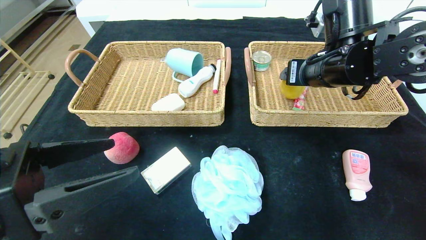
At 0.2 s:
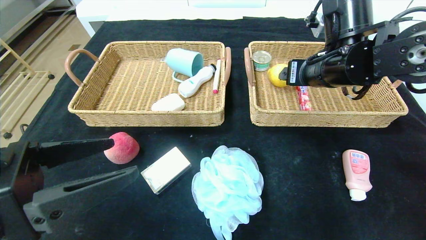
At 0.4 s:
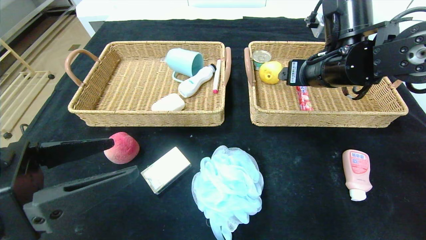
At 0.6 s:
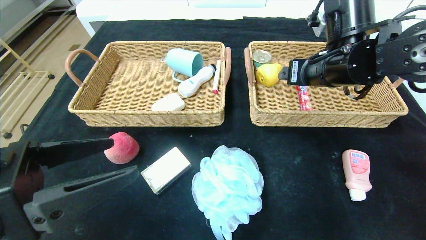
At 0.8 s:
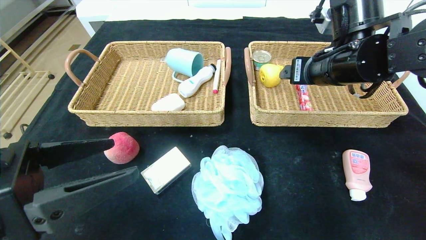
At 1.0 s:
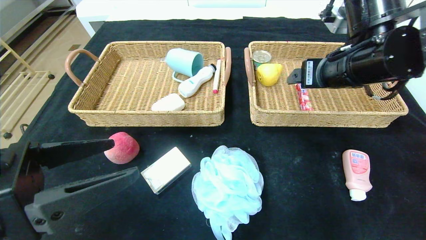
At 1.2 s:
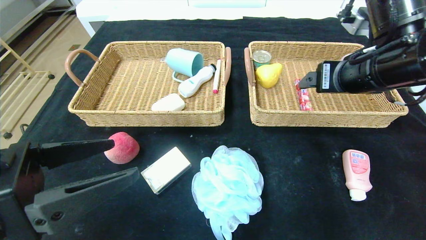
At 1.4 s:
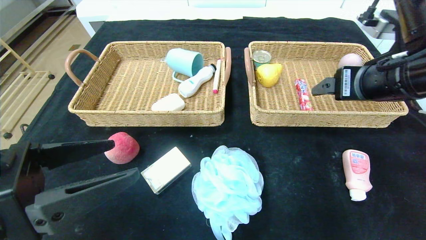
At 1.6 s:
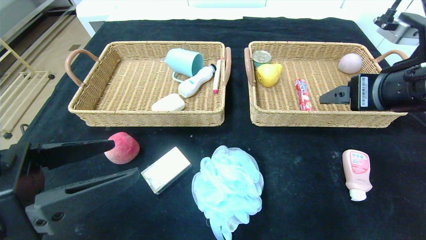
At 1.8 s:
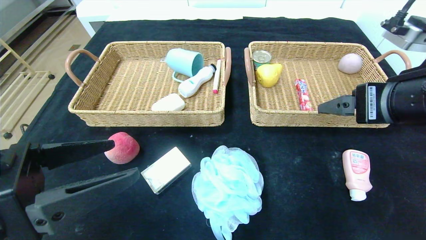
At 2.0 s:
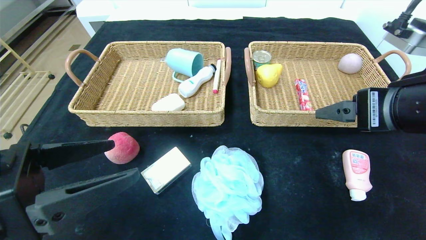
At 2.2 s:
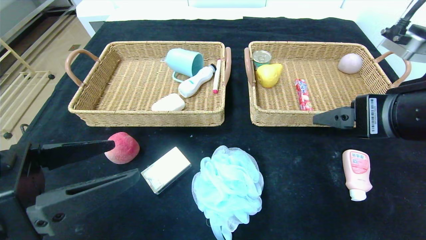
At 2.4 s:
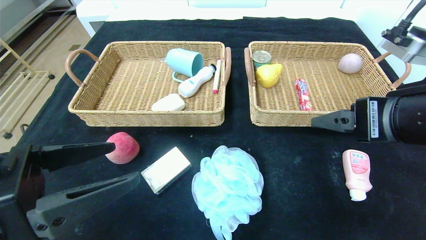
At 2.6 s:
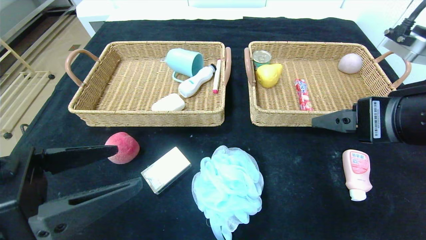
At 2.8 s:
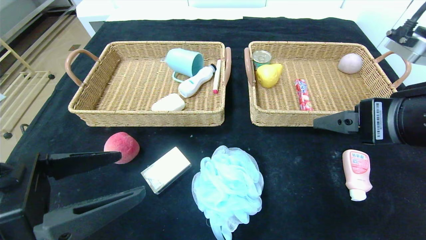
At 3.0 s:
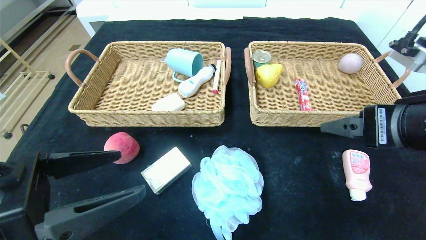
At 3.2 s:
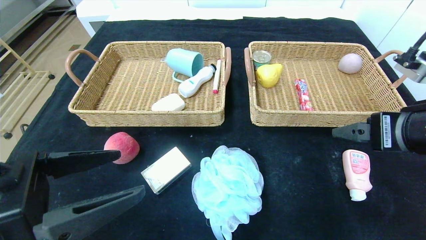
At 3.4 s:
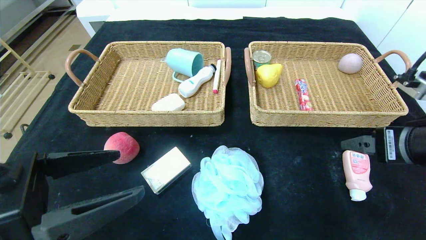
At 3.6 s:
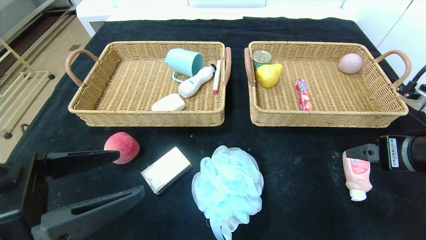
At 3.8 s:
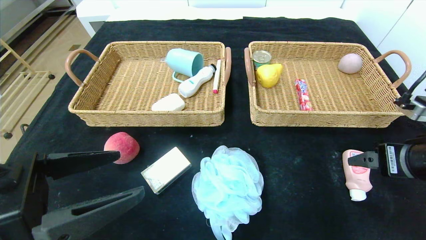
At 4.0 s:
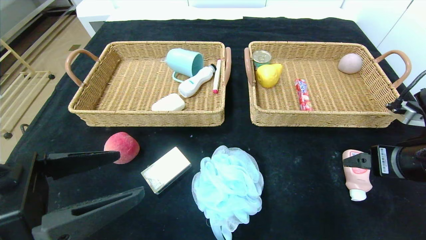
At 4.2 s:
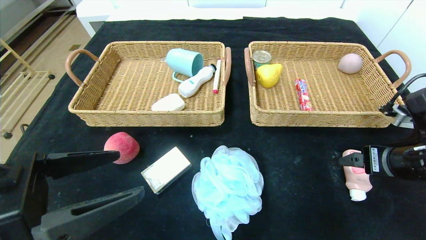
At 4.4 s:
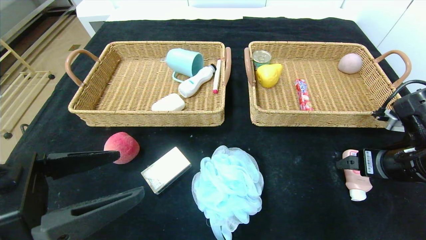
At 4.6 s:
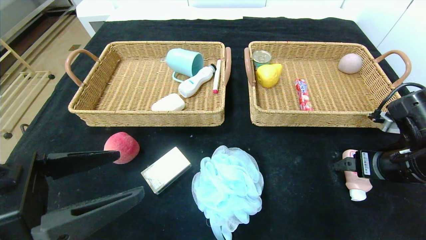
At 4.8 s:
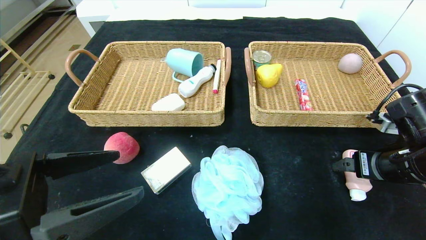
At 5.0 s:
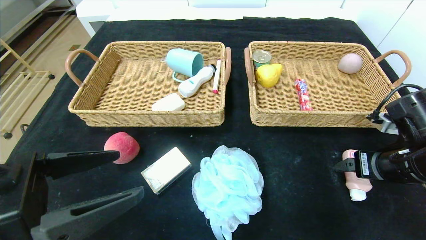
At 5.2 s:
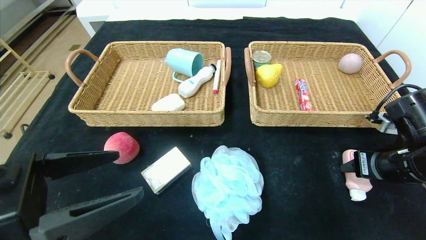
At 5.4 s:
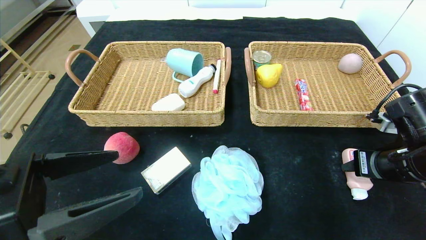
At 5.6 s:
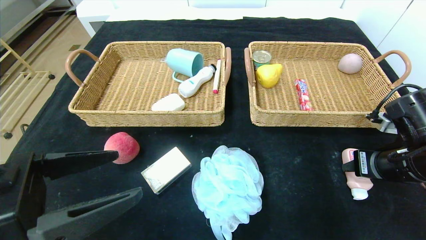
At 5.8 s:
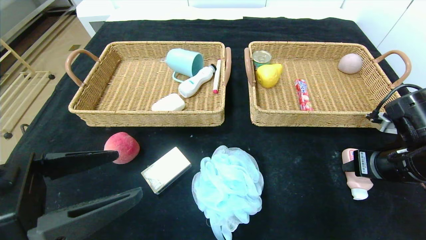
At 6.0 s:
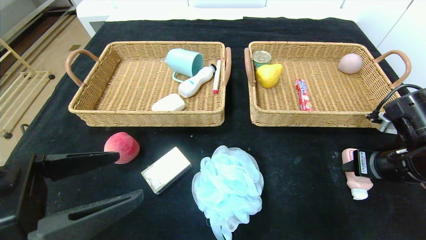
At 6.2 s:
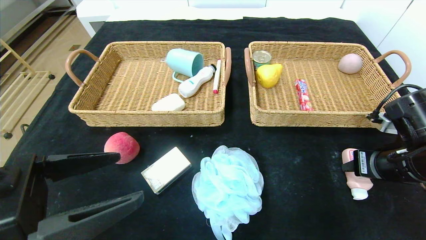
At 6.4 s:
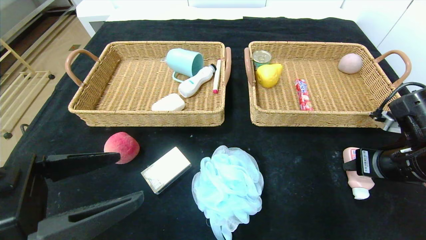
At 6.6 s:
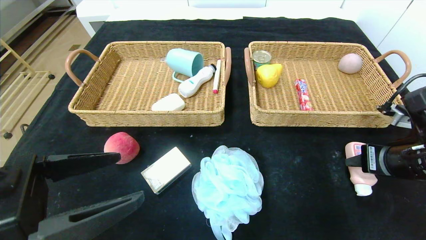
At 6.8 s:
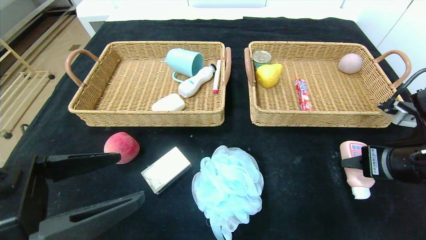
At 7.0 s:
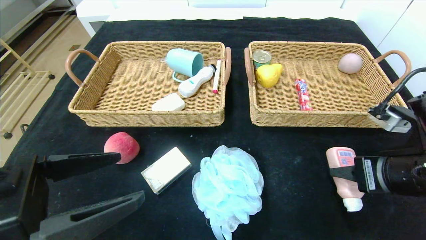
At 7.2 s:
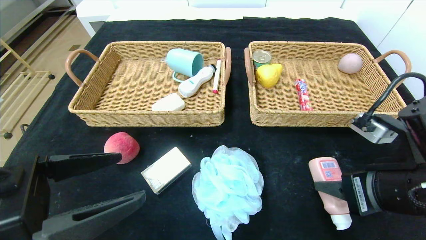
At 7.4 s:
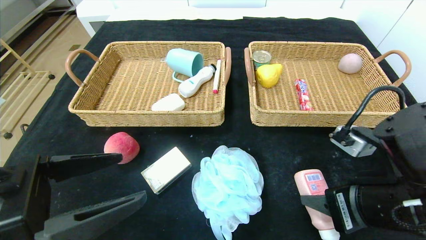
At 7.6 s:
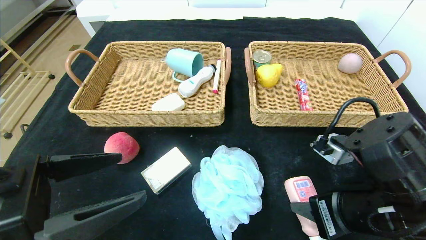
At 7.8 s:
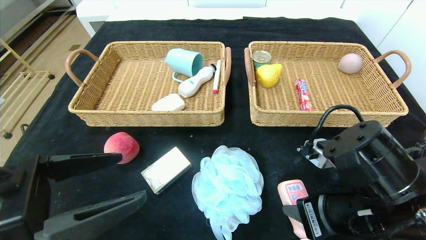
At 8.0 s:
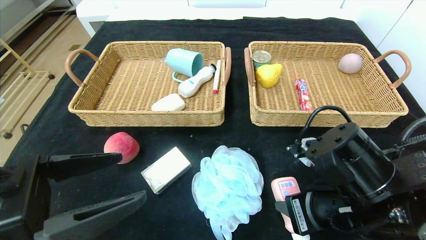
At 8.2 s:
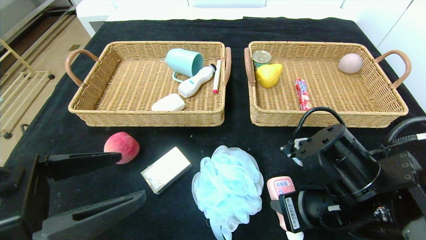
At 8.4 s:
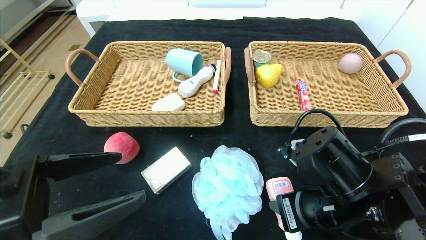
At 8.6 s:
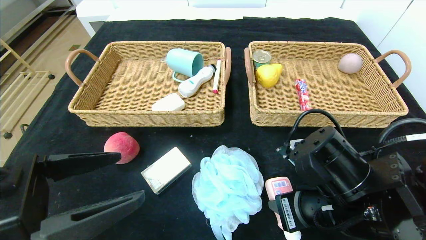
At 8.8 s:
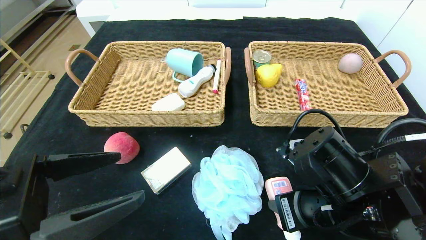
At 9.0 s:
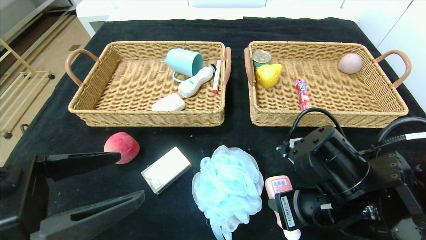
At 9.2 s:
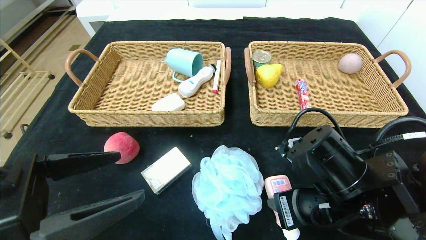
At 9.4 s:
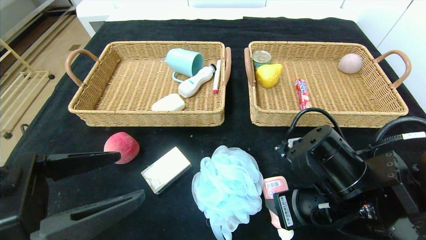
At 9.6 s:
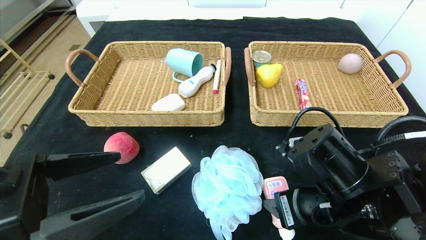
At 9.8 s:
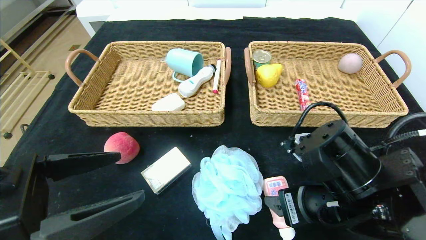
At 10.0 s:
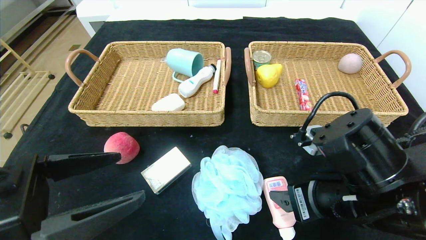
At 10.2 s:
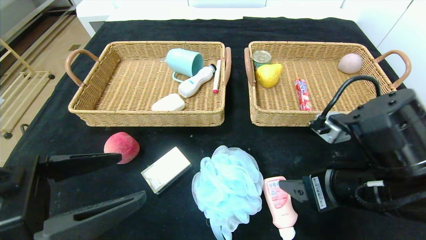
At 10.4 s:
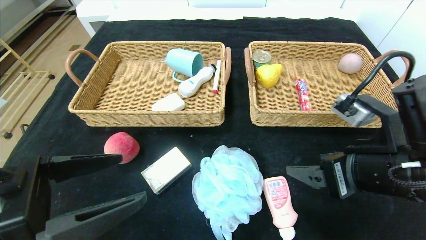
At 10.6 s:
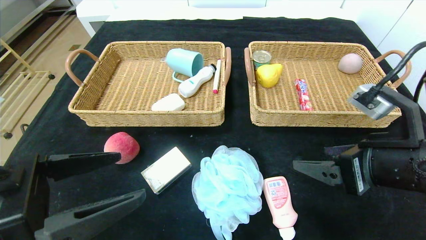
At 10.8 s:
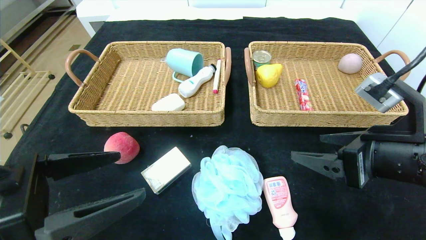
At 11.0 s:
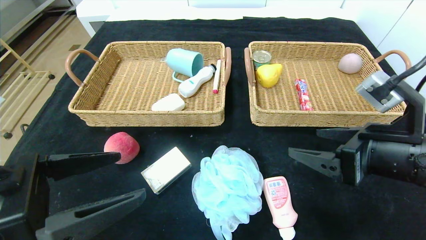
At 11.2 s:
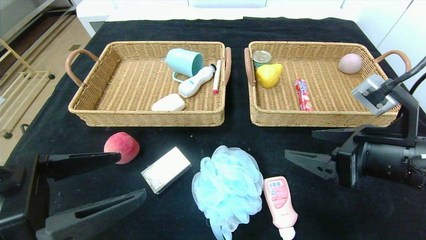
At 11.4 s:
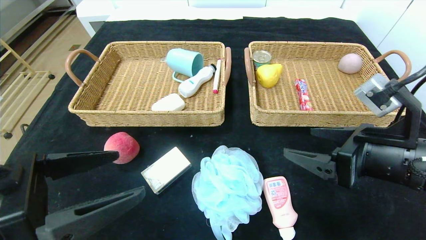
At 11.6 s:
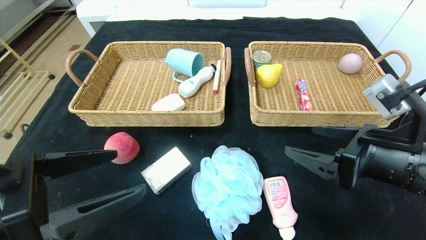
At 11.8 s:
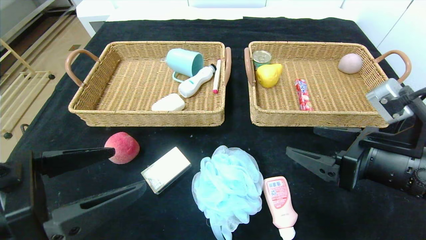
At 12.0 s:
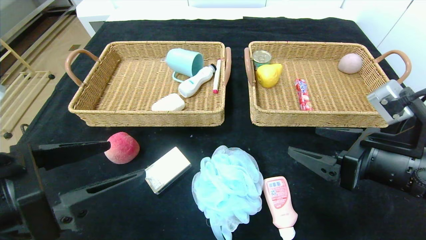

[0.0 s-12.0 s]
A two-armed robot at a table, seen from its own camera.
Step, 0.0 to 3.0 s: Pick up the pear and put it in the right basket.
Step, 3.2 to 10.4 s: Place the washing liquid in the center of the table.
0.0 to 1.6 s: The right gripper travels backward and to the right by about 10 cm.
1.6 to 3.0 s: The right gripper shifts by about 5 cm.
3.0 to 4.4 s: The right gripper shifts roughly 15 cm downward, to the right and forward.
4.4 to 6.0 s: The right gripper closes its fingers.
6.0 to 7.6 s: The right gripper heads to the left and backward, covering roughly 15 cm.
7.6 to 9.0 s: The right gripper moves approximately 5 cm.
9.0 to 10.4 s: The right gripper goes approximately 10 cm to the right and upward, and opens.

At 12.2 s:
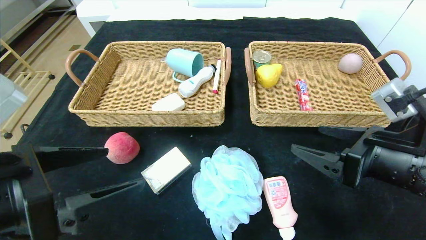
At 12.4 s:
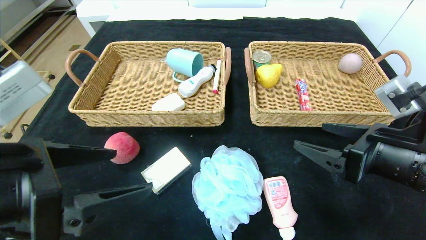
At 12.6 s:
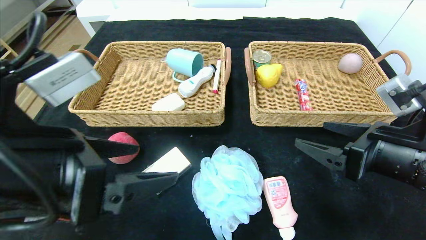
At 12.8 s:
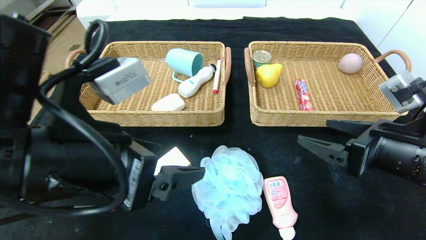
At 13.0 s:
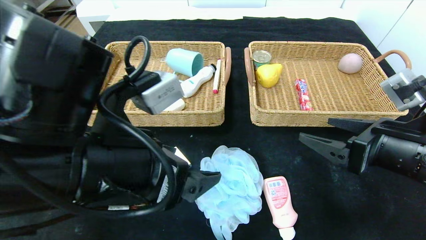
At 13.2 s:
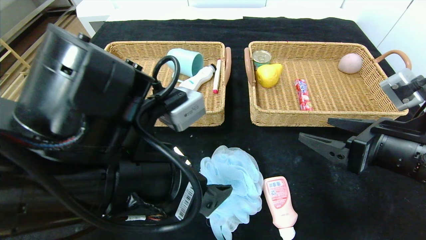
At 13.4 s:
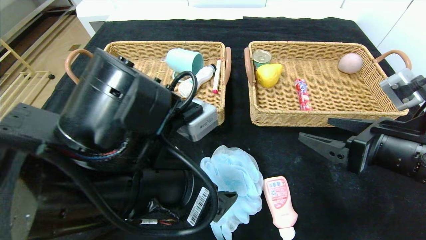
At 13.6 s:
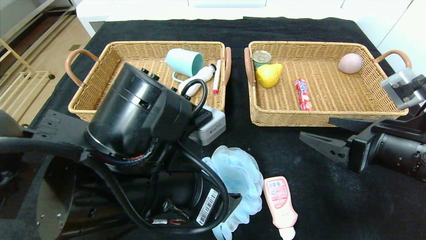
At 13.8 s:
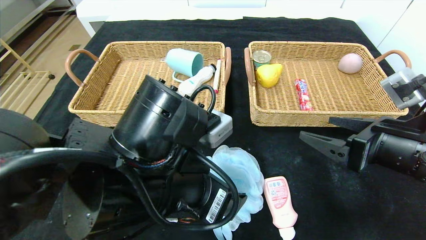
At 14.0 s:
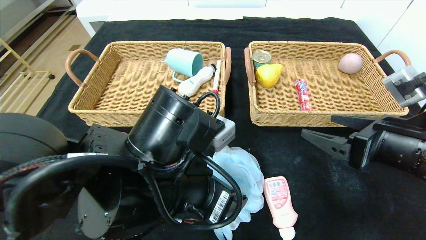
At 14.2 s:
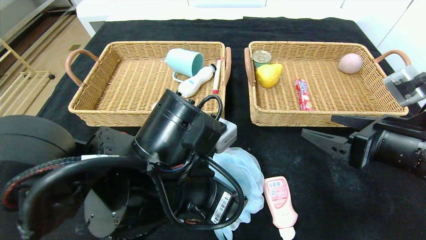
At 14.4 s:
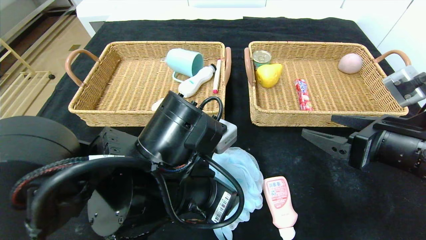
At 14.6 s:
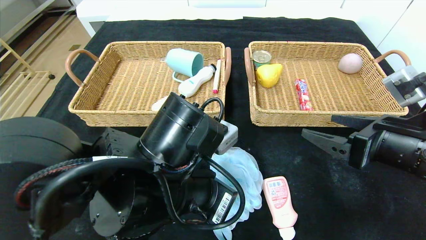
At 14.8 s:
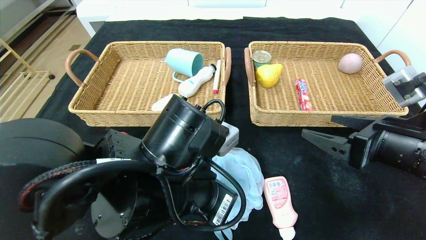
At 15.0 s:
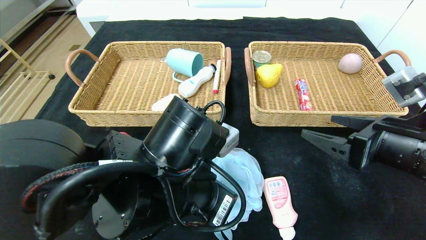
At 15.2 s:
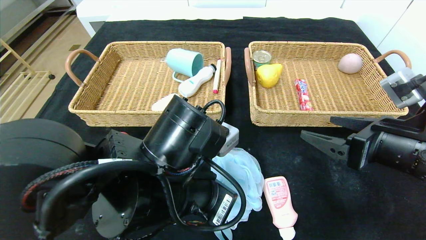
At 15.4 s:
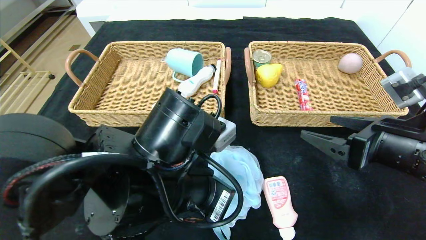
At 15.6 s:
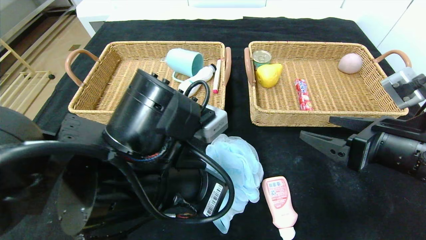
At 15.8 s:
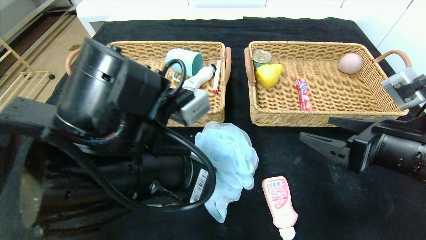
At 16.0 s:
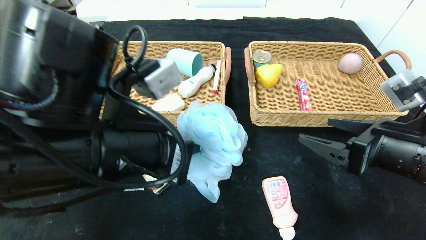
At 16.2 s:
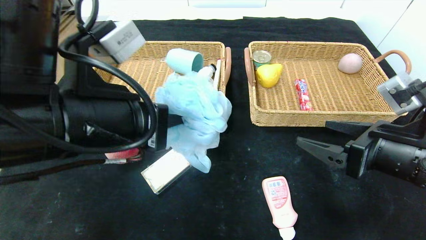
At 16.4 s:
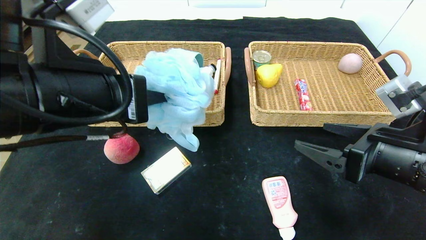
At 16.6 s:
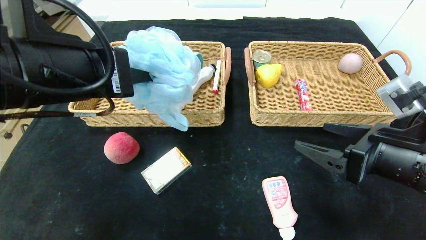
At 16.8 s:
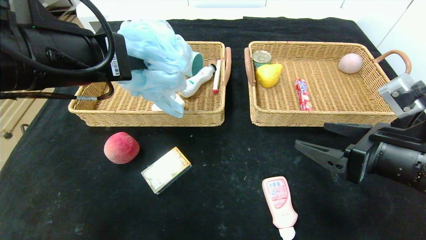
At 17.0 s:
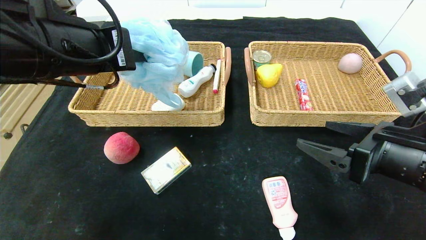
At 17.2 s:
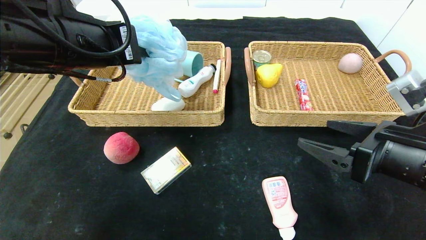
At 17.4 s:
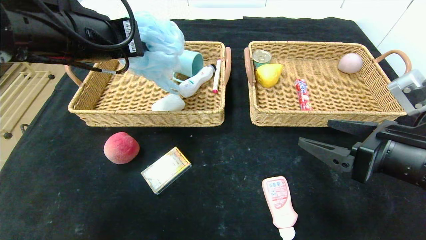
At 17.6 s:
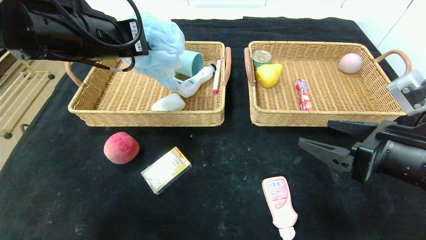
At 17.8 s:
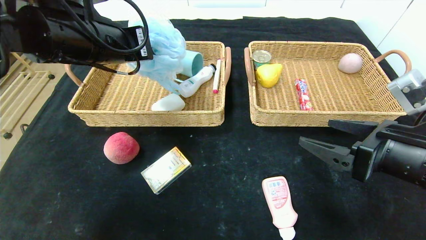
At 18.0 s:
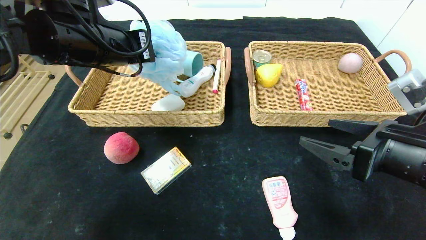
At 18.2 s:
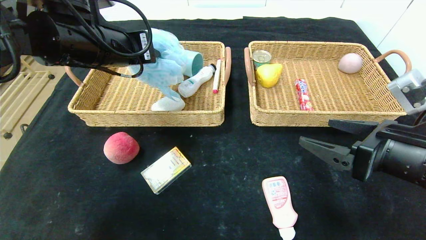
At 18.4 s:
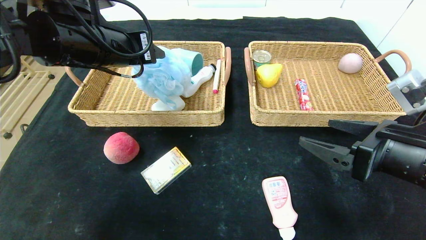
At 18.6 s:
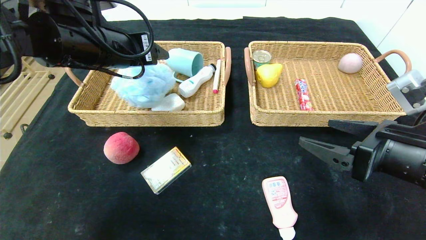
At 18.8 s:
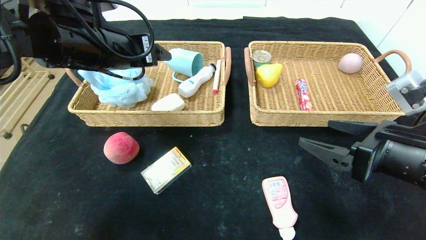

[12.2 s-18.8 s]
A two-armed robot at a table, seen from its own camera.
12.2 to 13.8 s: The left gripper travels to the right and forward by approximately 15 cm.
13.8 to 15.4 s: The left gripper closes its fingers.
15.4 to 17.2 s: The left gripper moves upward, to the left and forward, approximately 20 cm.
17.2 to 18.8 s: The left gripper shifts about 5 cm forward, and opens.
